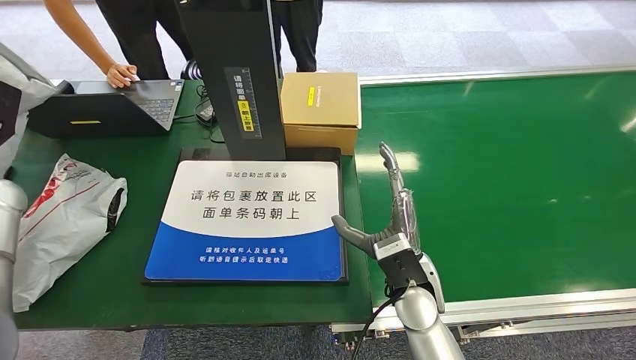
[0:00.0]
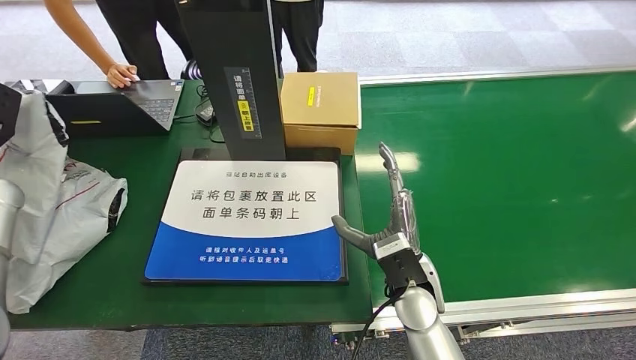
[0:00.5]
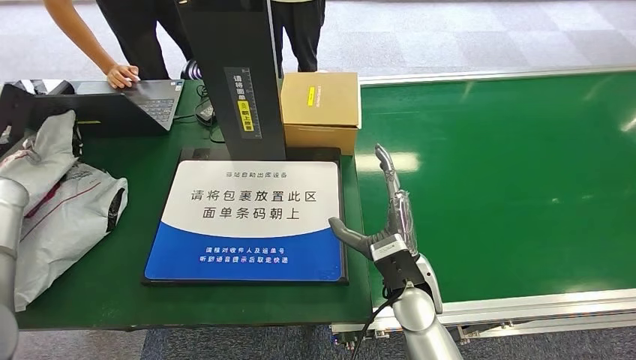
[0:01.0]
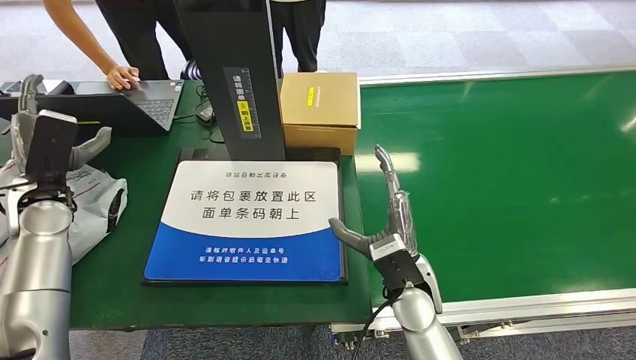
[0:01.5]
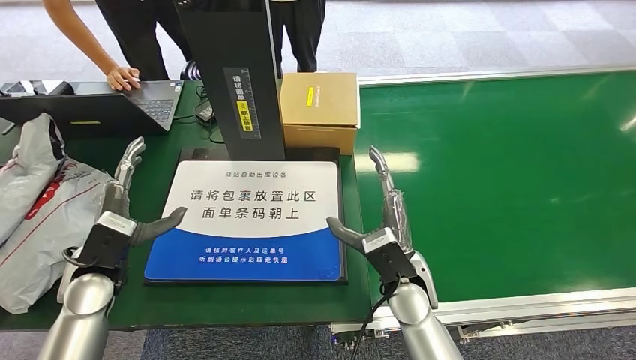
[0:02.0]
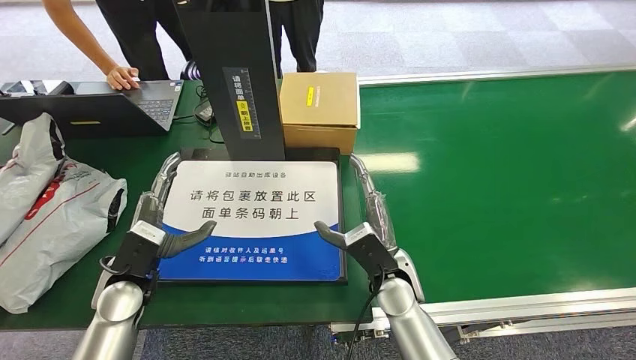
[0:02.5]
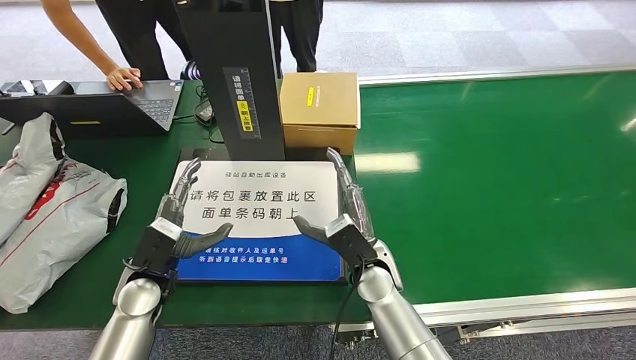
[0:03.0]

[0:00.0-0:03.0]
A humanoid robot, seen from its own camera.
Step, 0:00.0 to 0:03.0: Place the package into the parcel locker.
0:00.0 to 0:01.5: The left hand is displaced to the right by some 10 cm.
0:01.5 to 0:03.0: The left hand moves to the right, downward and backward, roughly 20 cm, while the right hand heads to the left, covering about 5 cm.
